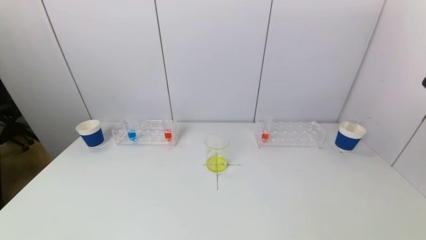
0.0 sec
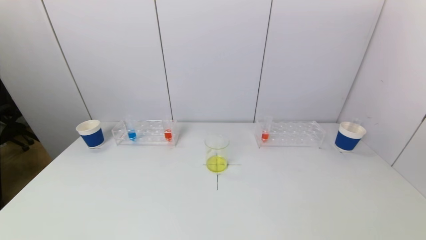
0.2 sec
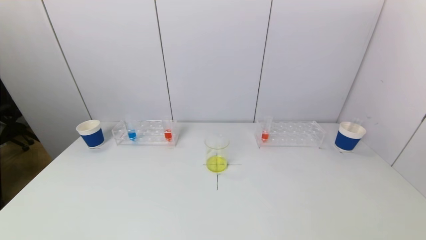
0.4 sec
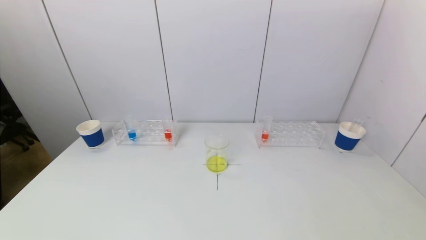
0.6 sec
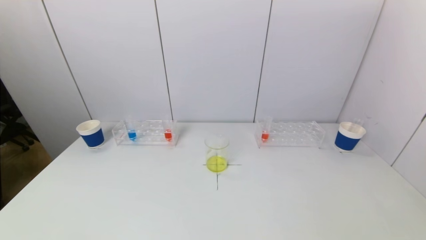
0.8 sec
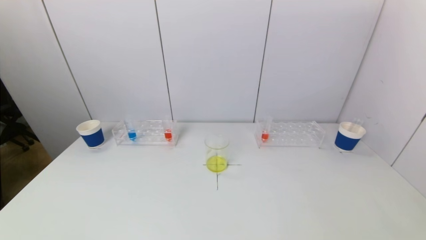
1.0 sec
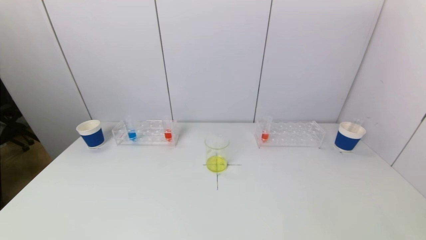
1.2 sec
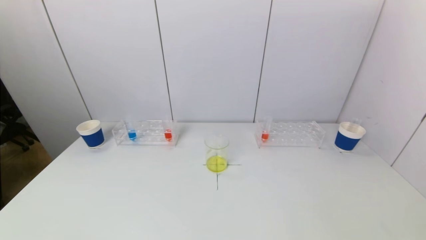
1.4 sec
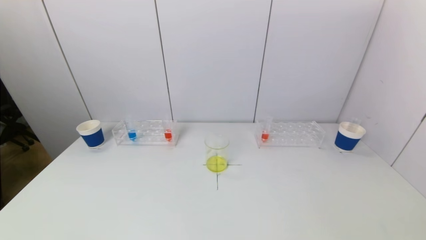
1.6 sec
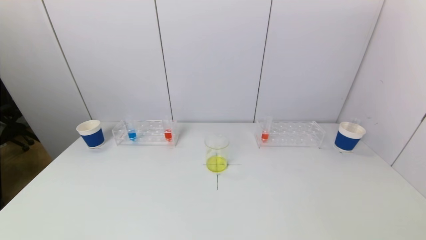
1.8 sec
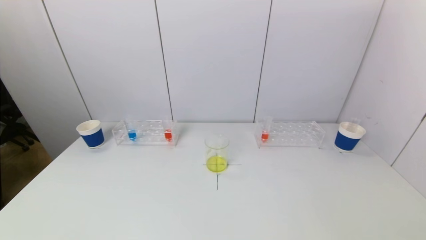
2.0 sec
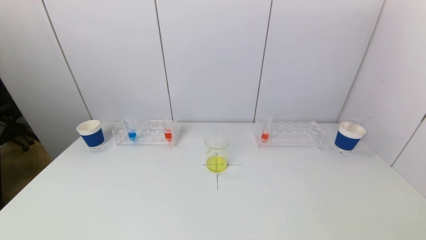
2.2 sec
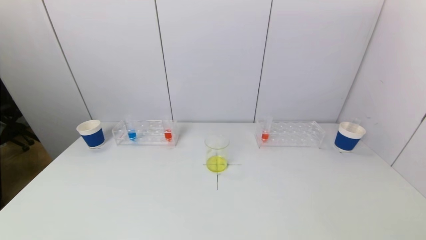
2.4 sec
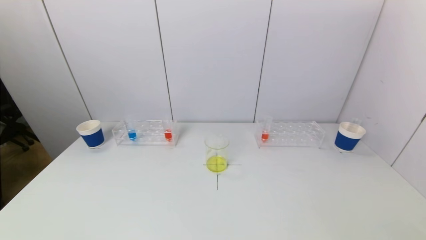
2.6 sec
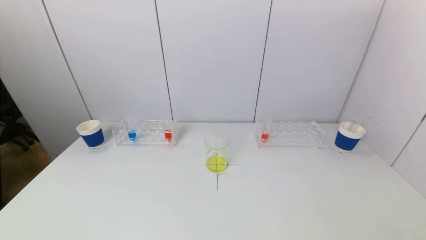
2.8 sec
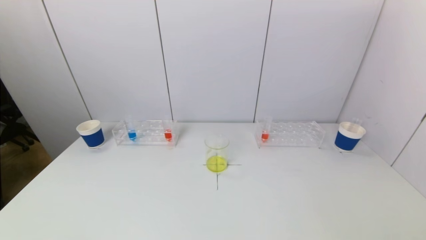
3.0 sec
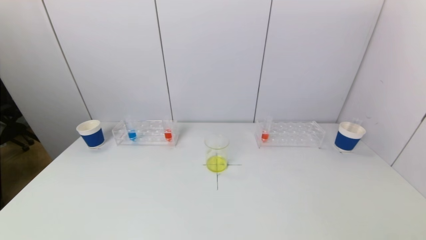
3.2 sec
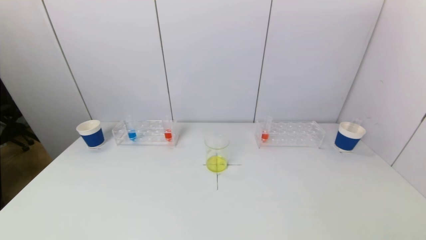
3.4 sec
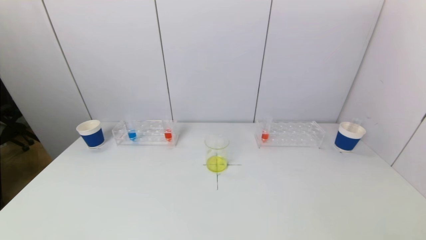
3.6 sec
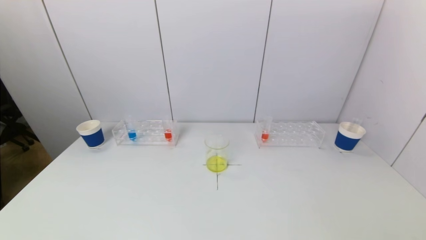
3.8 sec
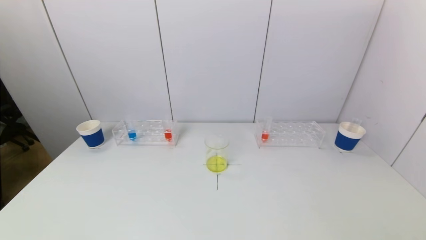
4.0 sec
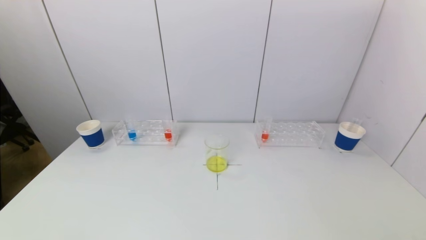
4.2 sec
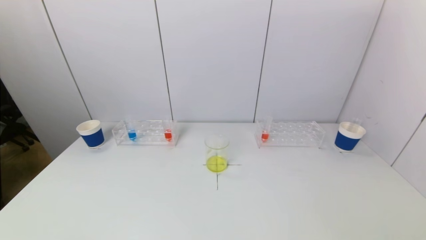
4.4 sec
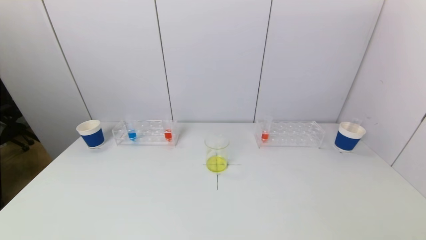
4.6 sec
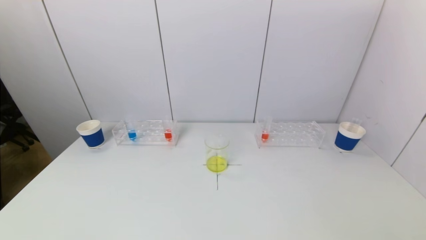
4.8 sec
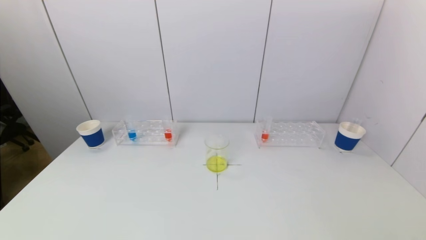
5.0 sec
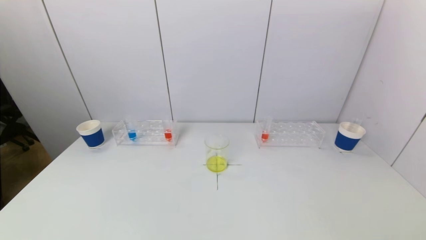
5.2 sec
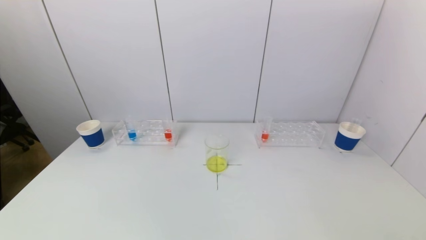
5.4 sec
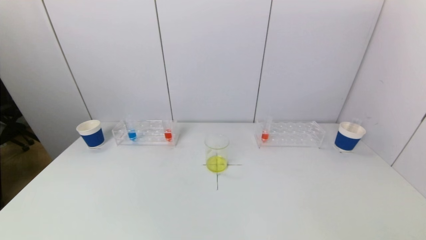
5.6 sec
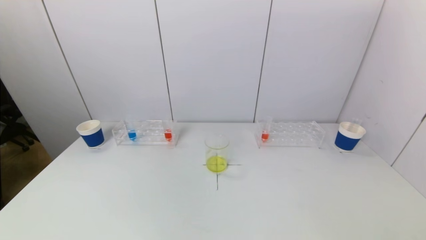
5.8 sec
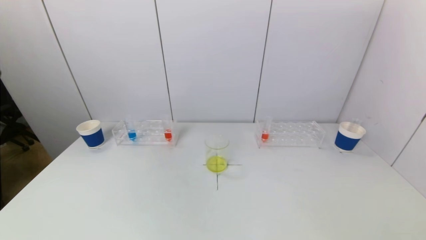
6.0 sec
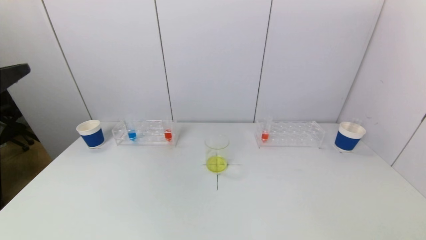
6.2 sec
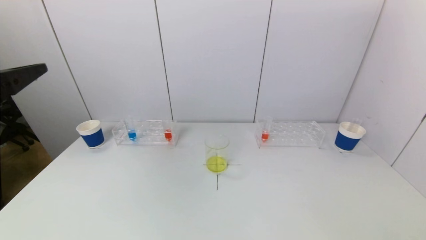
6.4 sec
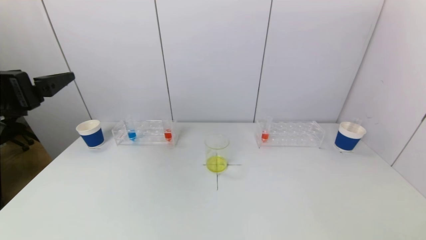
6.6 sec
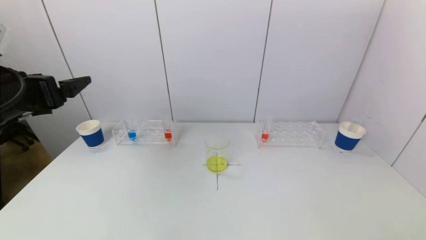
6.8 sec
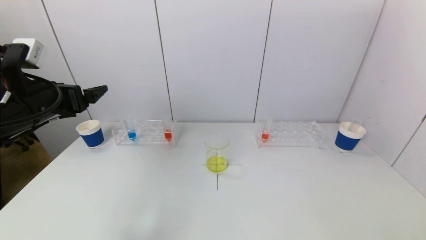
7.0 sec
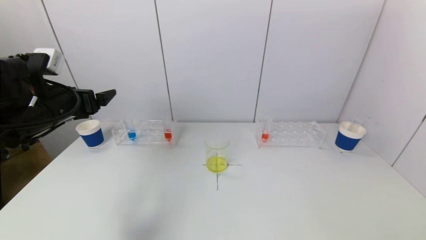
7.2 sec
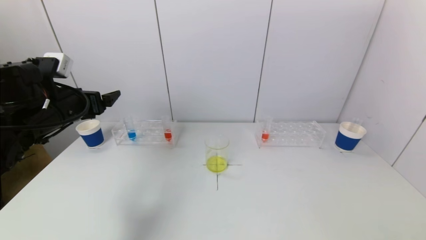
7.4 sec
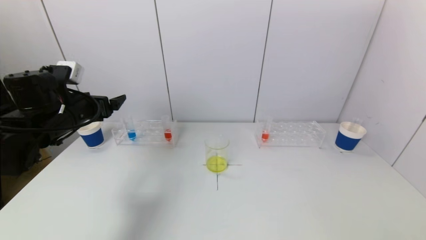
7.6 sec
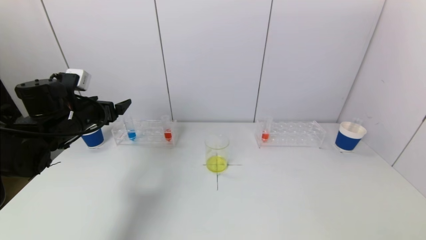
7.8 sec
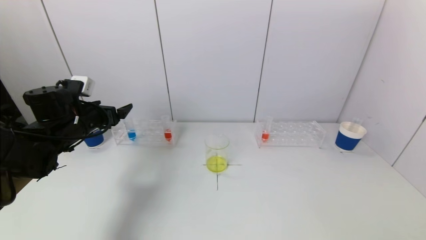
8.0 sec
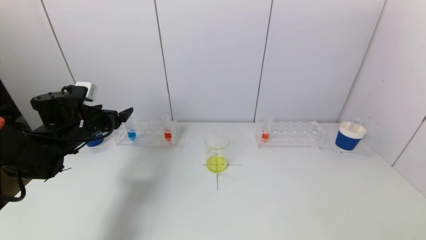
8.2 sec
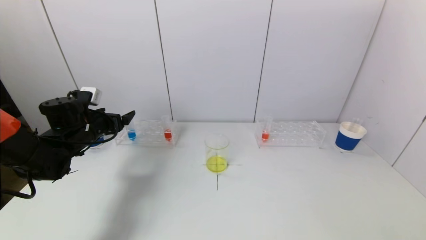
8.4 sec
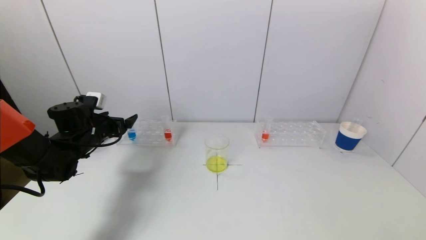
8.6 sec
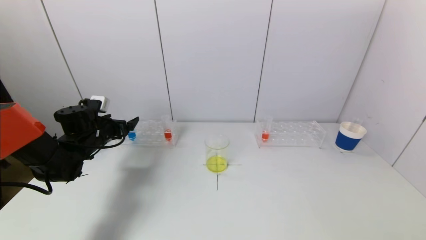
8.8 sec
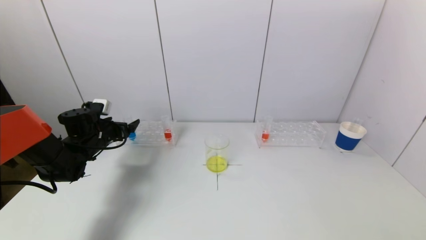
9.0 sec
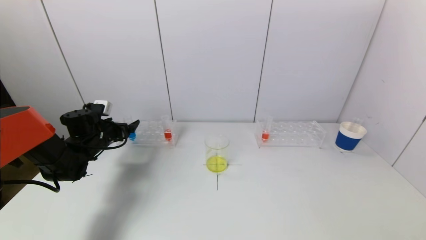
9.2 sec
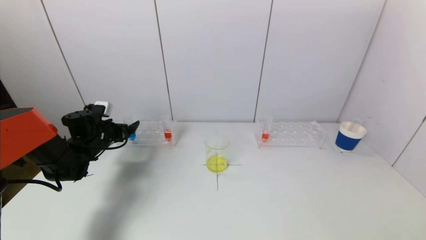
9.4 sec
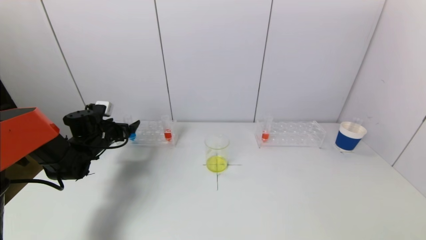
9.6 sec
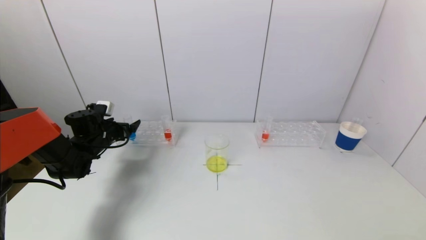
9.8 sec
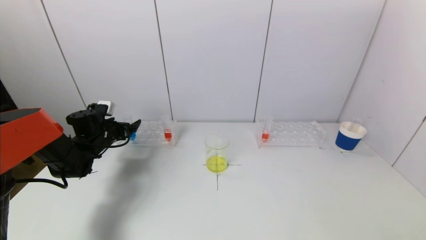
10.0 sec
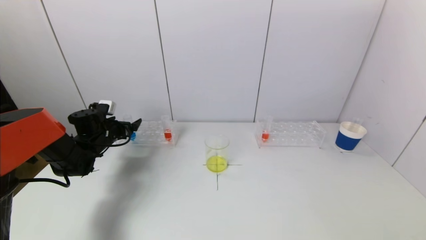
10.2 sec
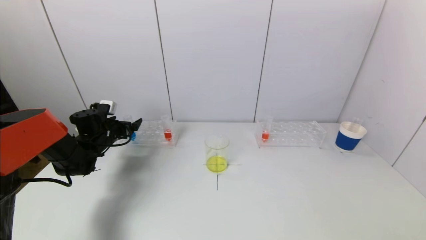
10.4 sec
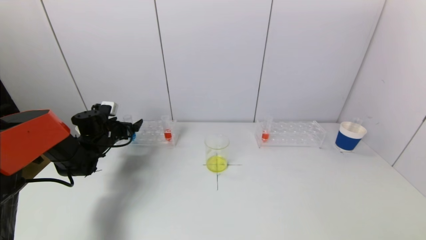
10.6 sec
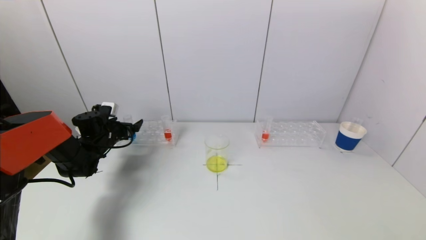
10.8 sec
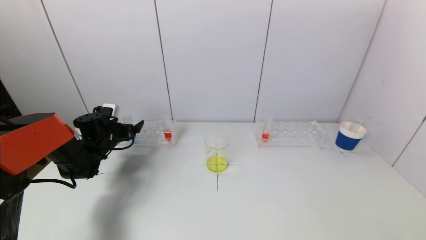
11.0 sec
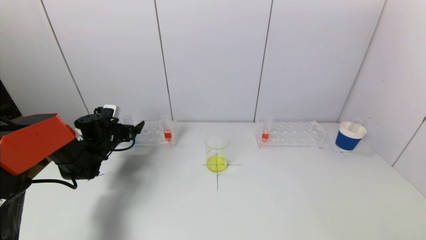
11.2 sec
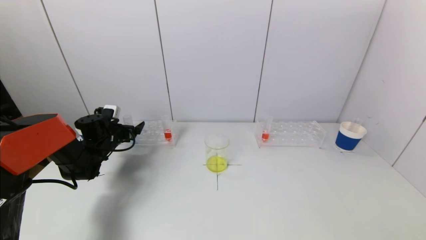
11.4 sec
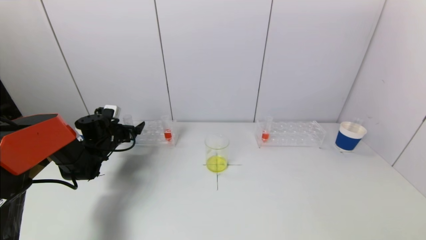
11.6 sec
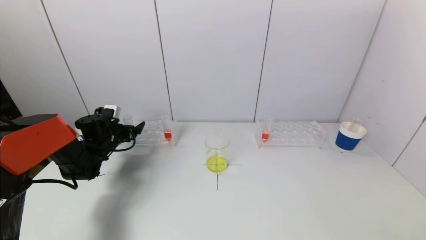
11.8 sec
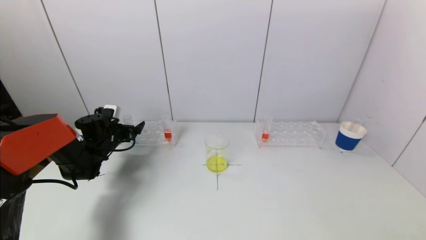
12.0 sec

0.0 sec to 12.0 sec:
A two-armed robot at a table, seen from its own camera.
Task of the whole recording: pick up a test tube with pigment on left test tube rack and a test tube with pigment on right test tube rack by grippers and pour them into the beaker.
3.0 sec to 4.4 sec: Both grippers stay put.
6.0 sec to 7.6 sec: The left gripper heads forward and downward, covering approximately 25 cm.
7.6 sec to 9.0 sec: The left gripper heads downward and forward, covering about 15 cm.
9.0 sec to 12.0 sec: The grippers make only small movements.

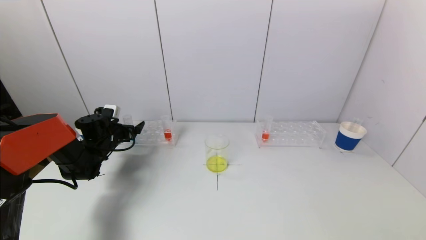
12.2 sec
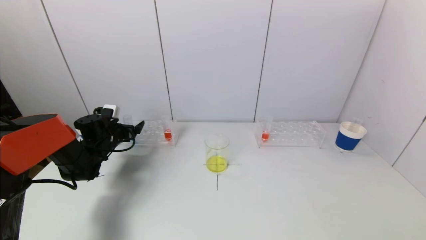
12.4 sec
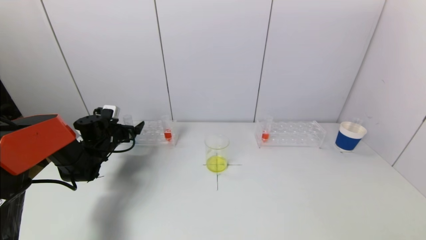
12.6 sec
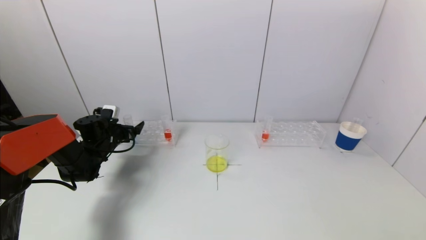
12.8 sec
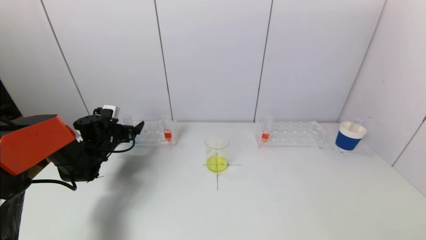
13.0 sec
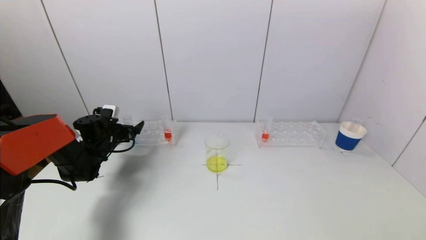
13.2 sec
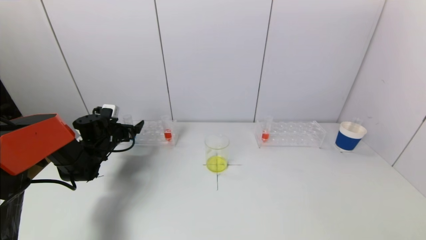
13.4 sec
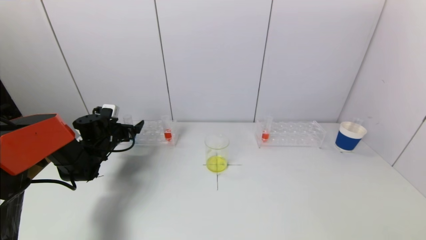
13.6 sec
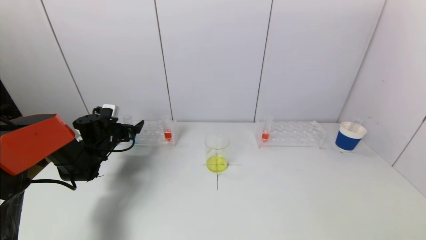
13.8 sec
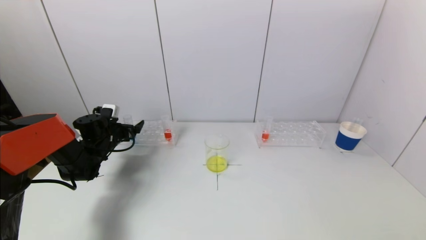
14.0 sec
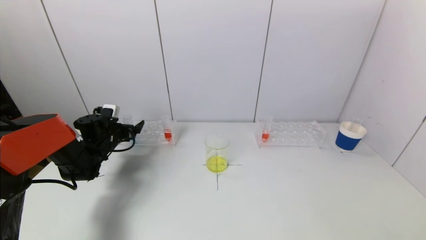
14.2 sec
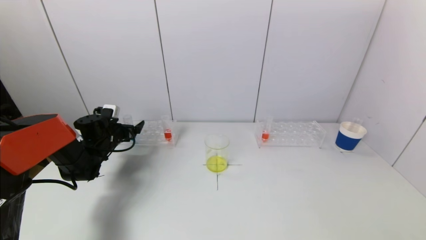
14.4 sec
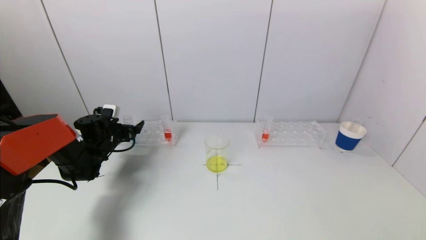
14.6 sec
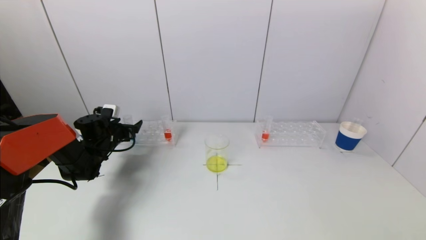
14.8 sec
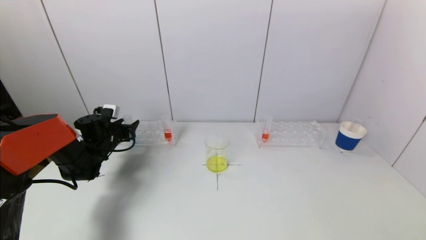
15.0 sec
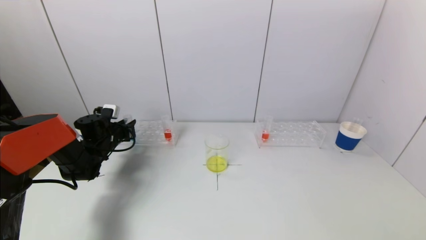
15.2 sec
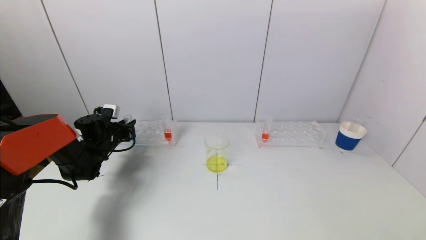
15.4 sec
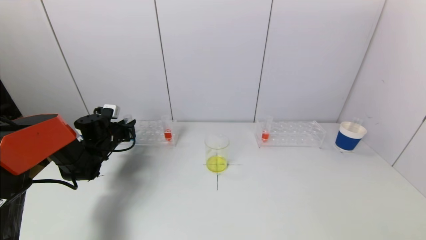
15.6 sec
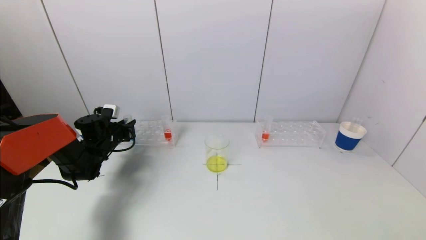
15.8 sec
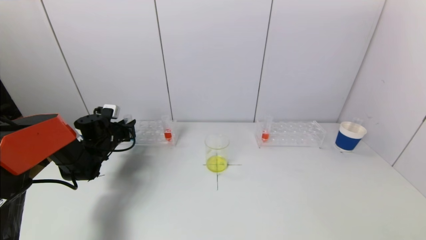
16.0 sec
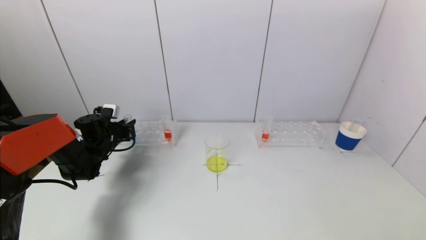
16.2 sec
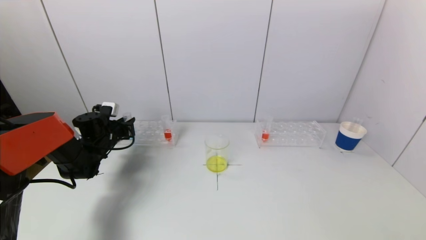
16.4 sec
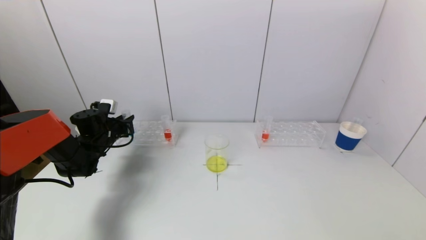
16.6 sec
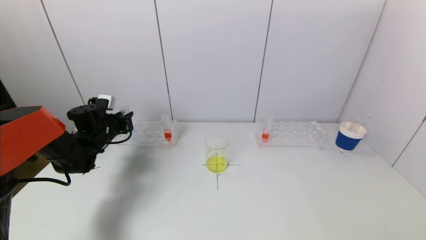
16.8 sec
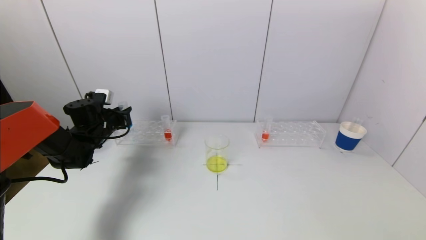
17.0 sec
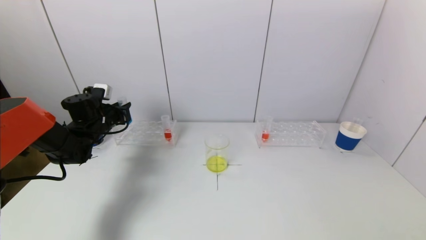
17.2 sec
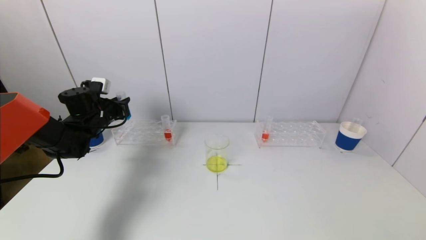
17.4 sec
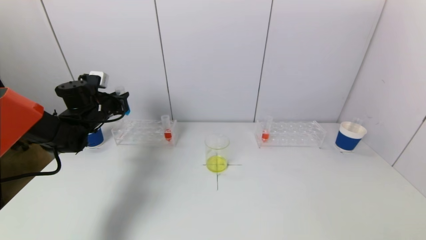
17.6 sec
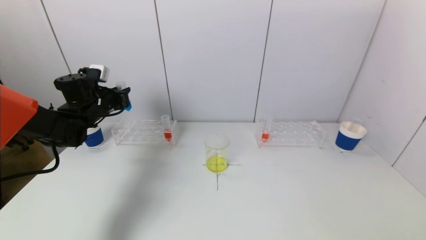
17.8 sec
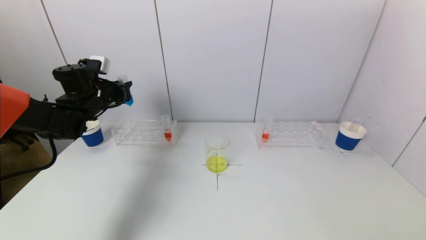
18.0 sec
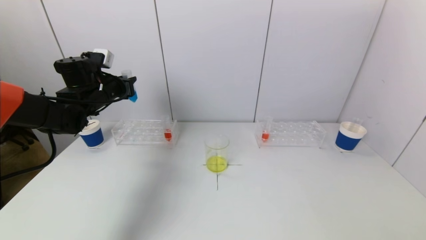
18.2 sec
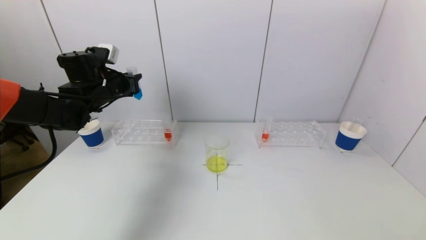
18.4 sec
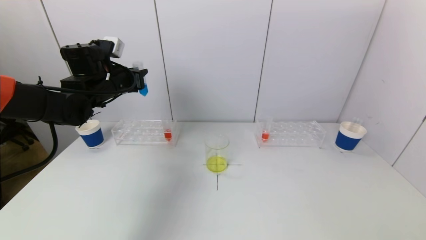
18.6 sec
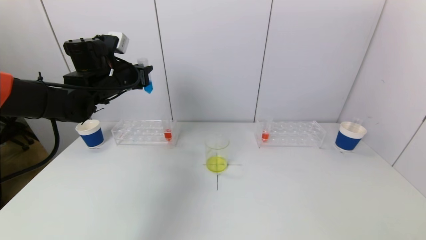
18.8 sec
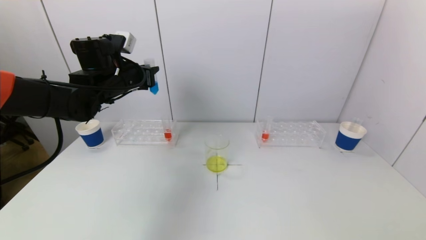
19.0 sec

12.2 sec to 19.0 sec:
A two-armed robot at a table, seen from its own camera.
Task of the whole recording: pick up a test tube with pigment on left test tube rack and a test tube with pigment on right test tube rack by grippers and pour them into the beaker.
12.2 sec to 13.6 sec: Both grippers stay put.
13.6 sec to 15.0 sec: The left gripper closes.
16.2 sec to 17.6 sec: The left gripper moves upward, roughly 10 cm.
17.6 sec to 19.0 sec: The left gripper travels to the right and upward by about 15 cm.
